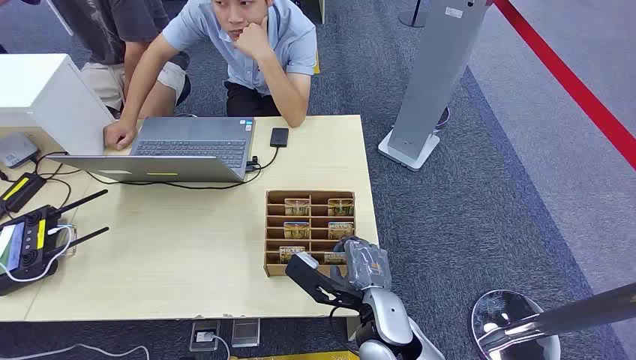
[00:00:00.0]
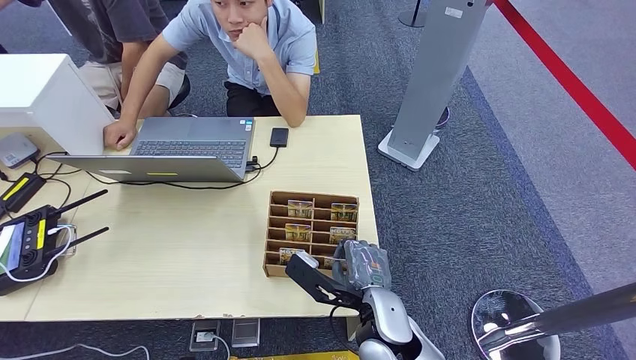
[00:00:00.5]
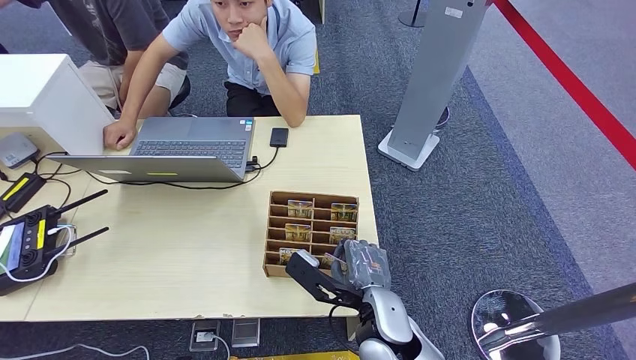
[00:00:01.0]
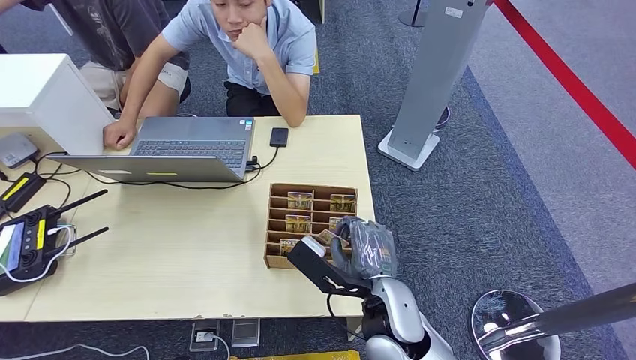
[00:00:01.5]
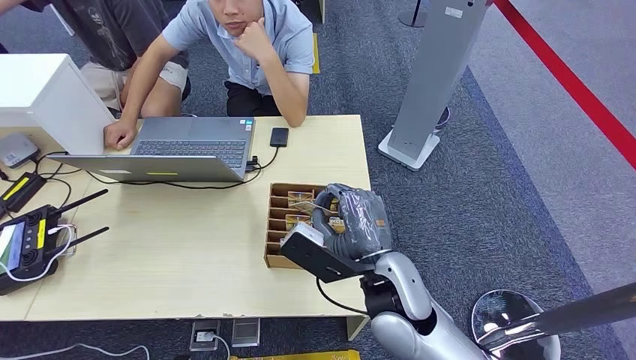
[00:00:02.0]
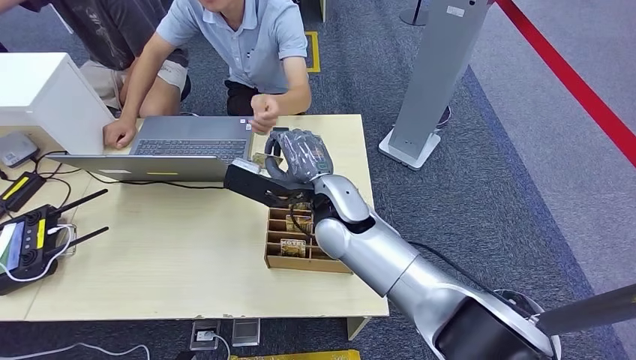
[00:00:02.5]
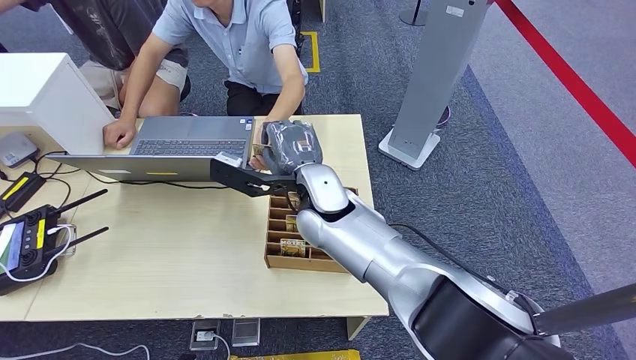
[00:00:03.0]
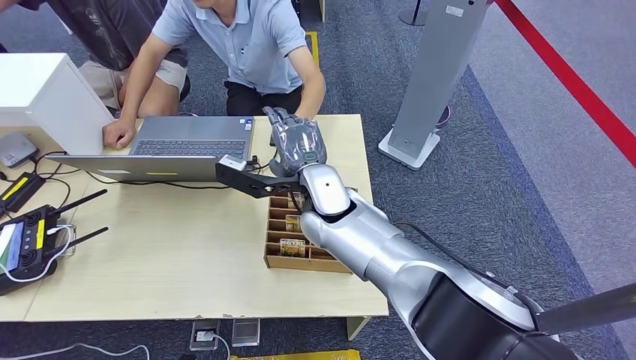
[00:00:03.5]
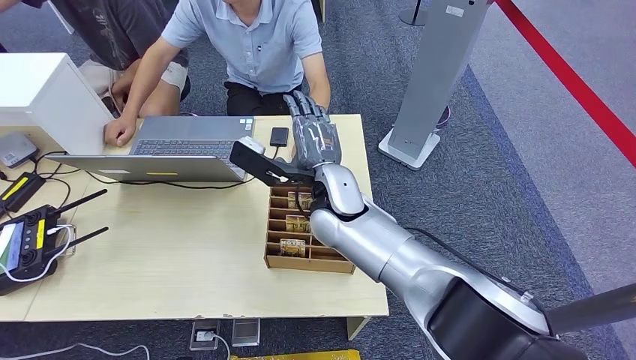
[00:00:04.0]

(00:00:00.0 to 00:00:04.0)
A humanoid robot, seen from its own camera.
Step, 00:00:00.0 - 00:00:02.0: Pick up the room card from the card holder.
Step, 00:00:02.5 - 00:00:04.0: Hand the room card to the target.
00:00:02.0 - 00:00:04.0: The right hand is displaced forward and to the left by some 15 cm.

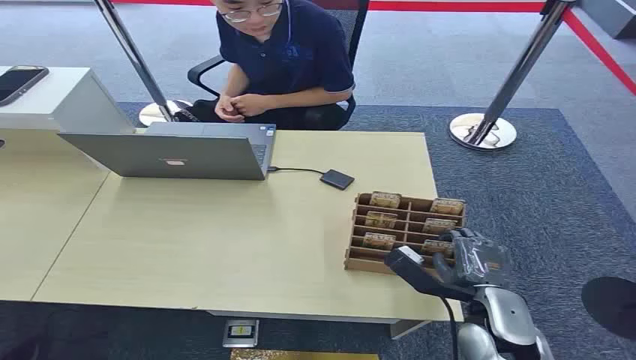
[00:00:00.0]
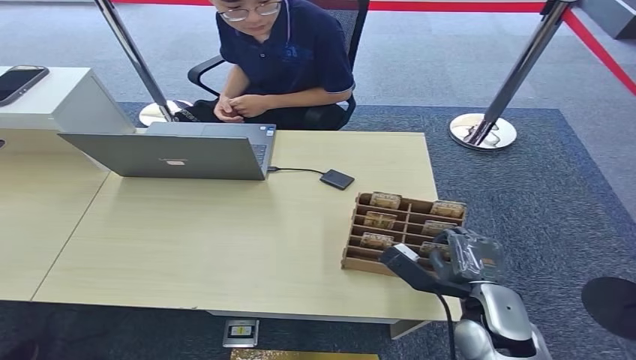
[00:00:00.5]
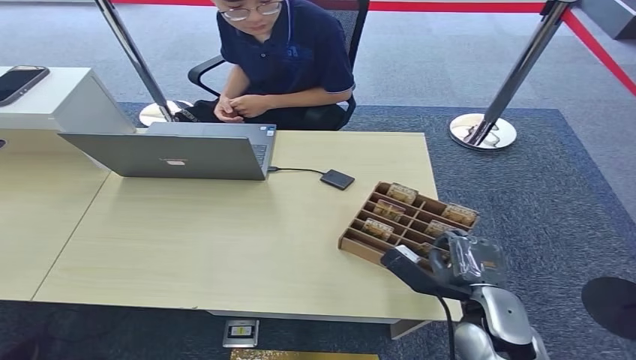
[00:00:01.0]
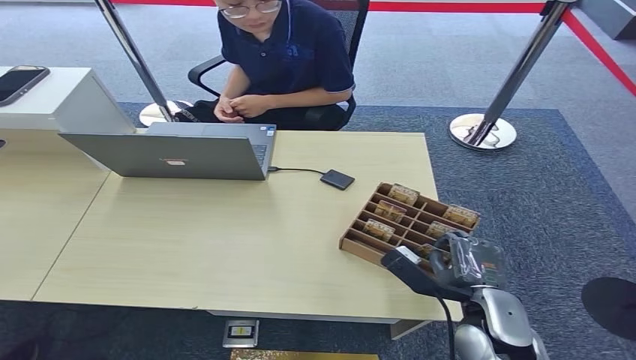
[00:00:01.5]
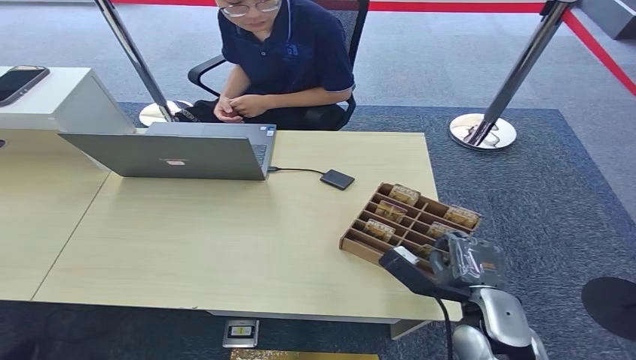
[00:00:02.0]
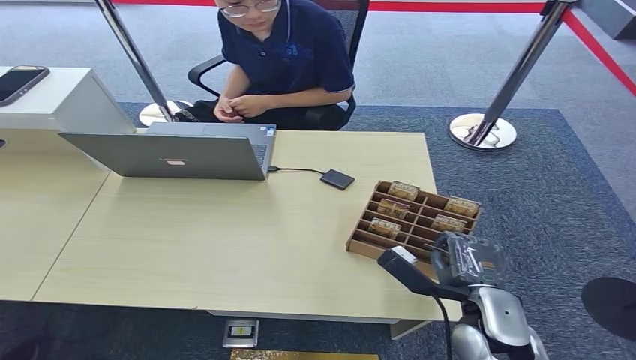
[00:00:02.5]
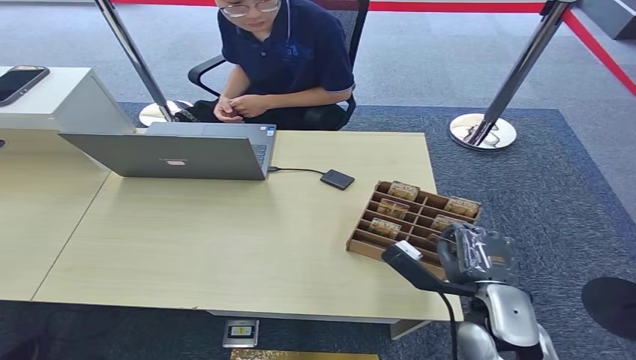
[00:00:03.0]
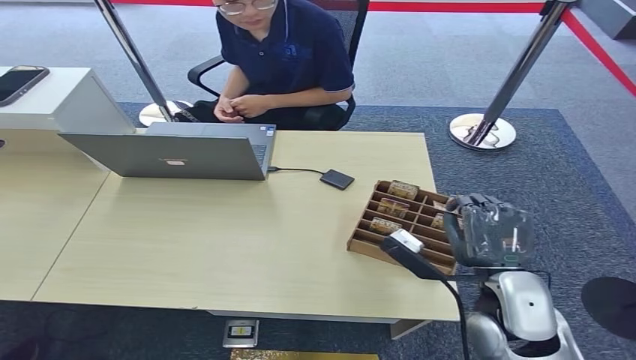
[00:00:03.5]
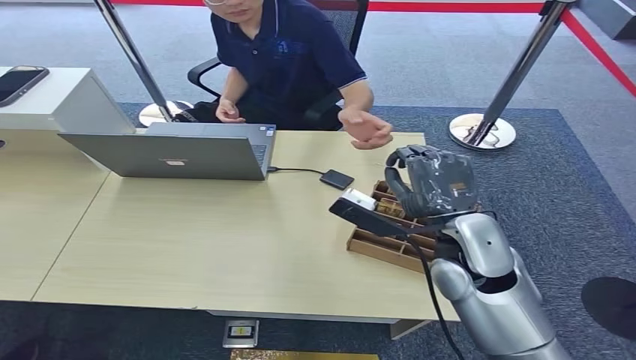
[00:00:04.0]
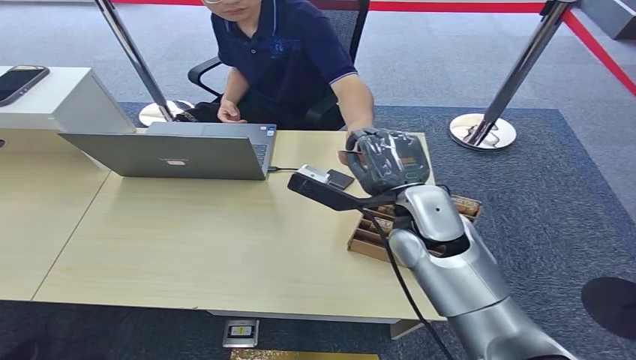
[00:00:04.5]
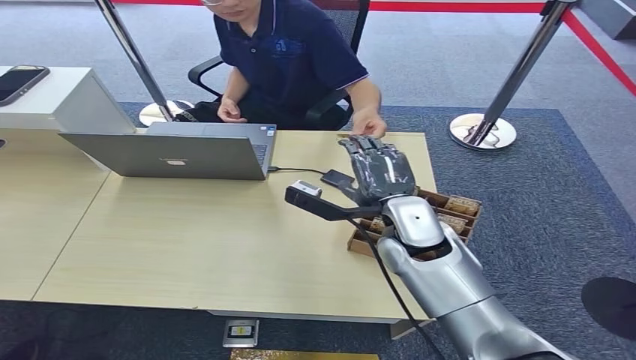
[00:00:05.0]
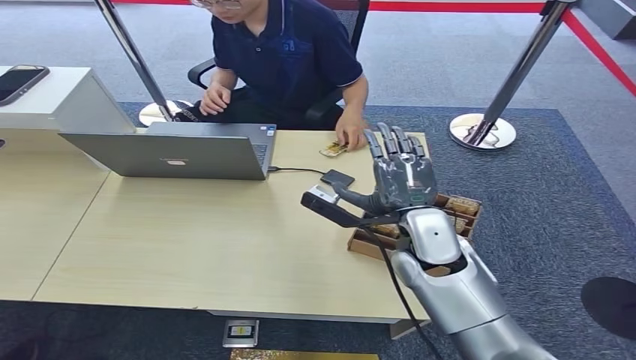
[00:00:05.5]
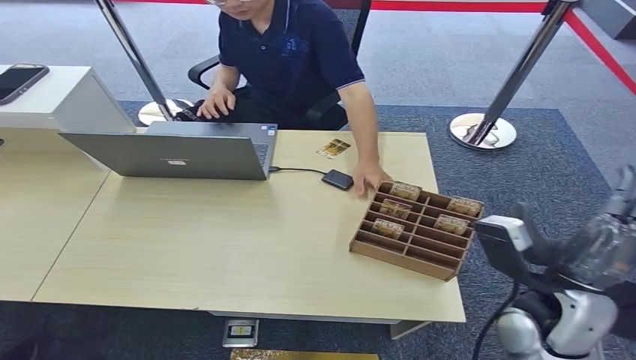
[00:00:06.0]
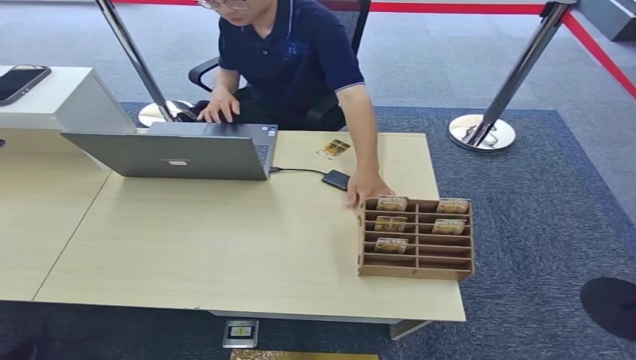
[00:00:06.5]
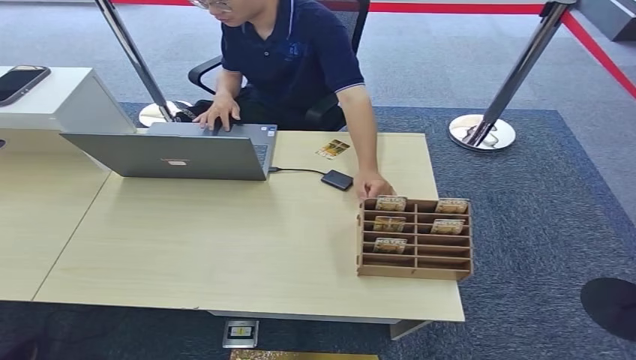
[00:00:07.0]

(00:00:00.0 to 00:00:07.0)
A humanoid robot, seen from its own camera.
Step, 00:00:00.0 - 00:00:03.0: Pick up the room card from the card holder.
Step, 00:00:04.0 - 00:00:07.0: Hand the room card to the target.
00:00:02.0 - 00:00:03.5: The right hand heads upward, covering some 5 cm.
00:00:03.5 - 00:00:05.0: The right hand heads forward and to the left, covering approximately 15 cm.
00:00:05.0 - 00:00:07.0: The right hand travels backward, downward and to the right by some 50 cm.
